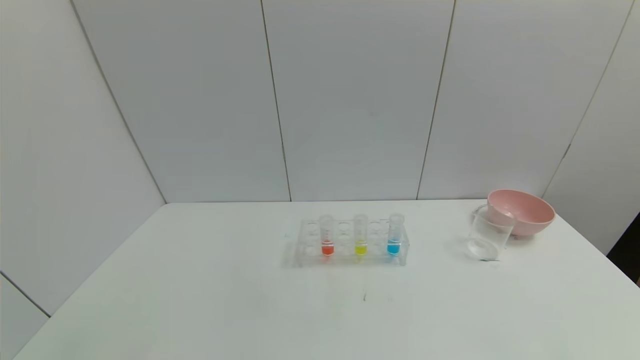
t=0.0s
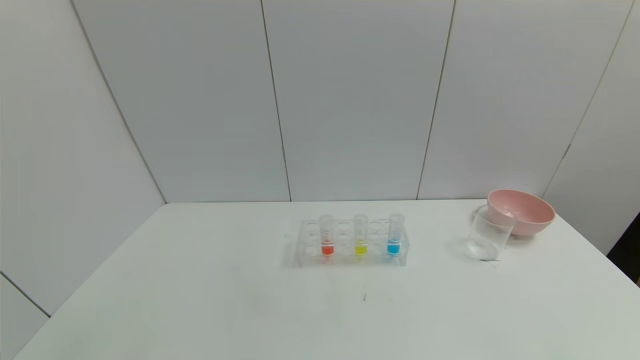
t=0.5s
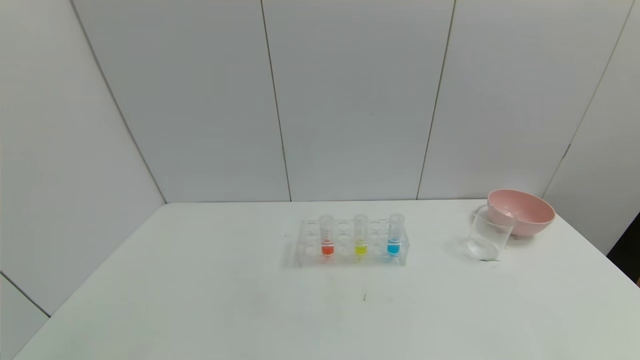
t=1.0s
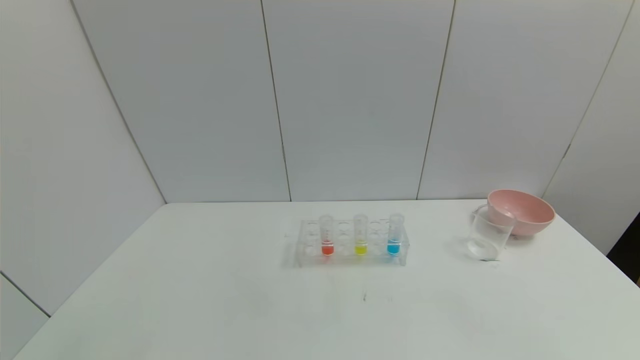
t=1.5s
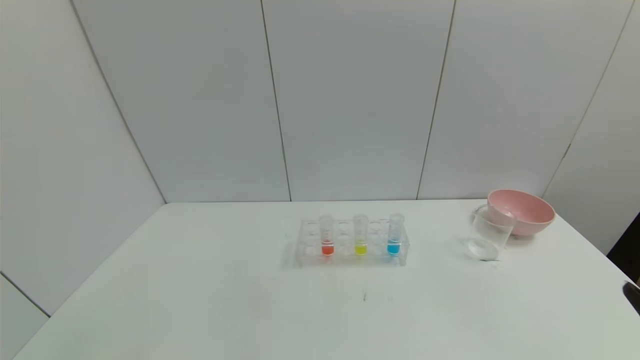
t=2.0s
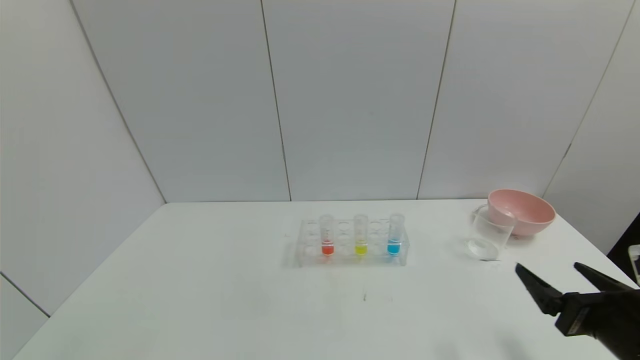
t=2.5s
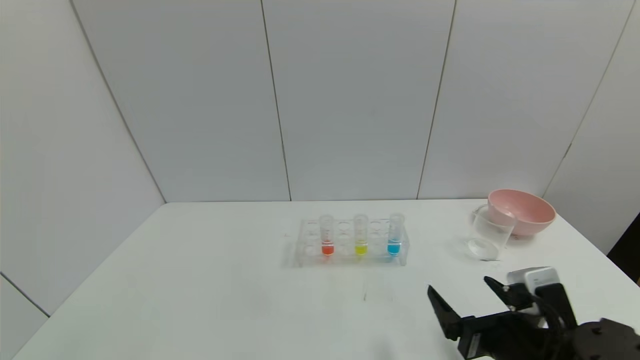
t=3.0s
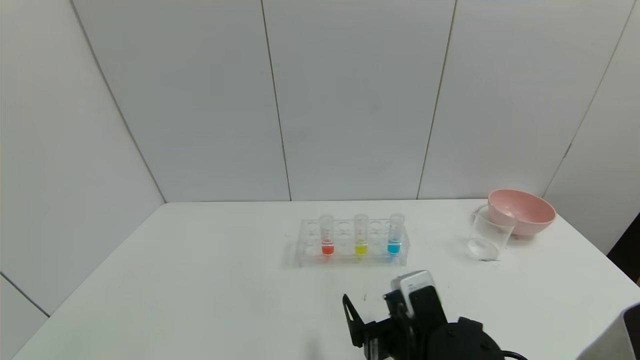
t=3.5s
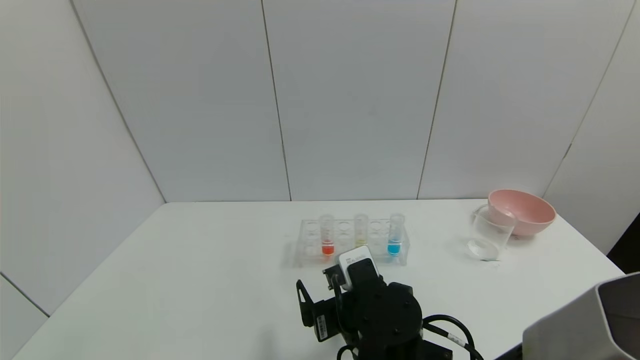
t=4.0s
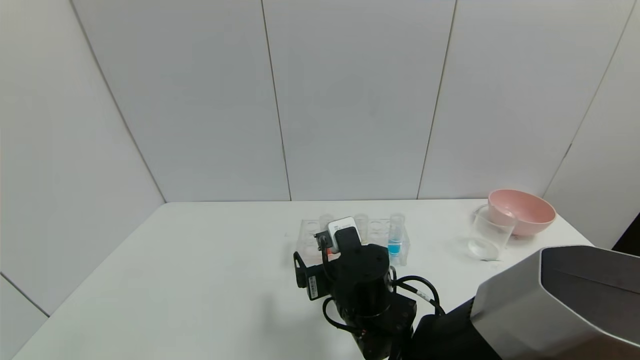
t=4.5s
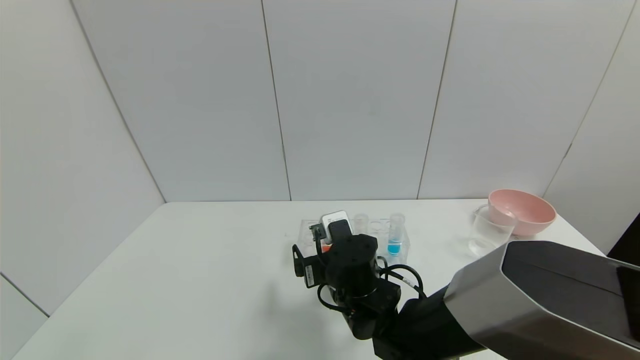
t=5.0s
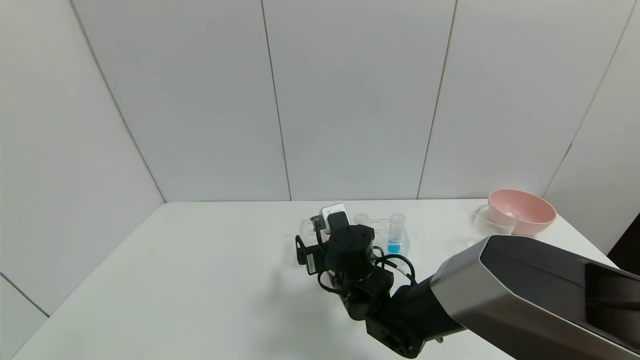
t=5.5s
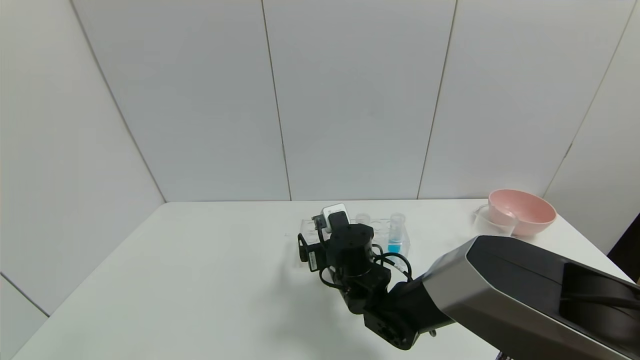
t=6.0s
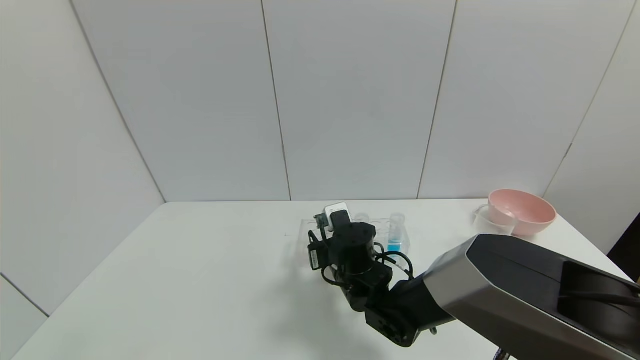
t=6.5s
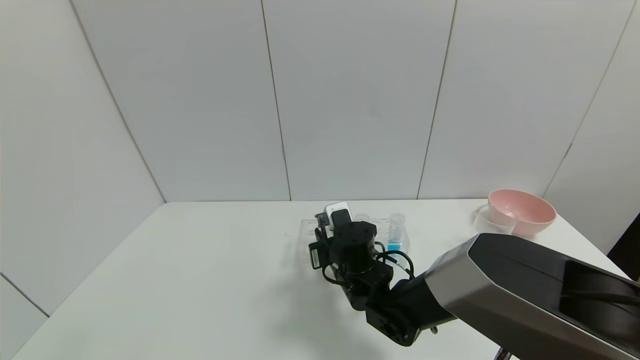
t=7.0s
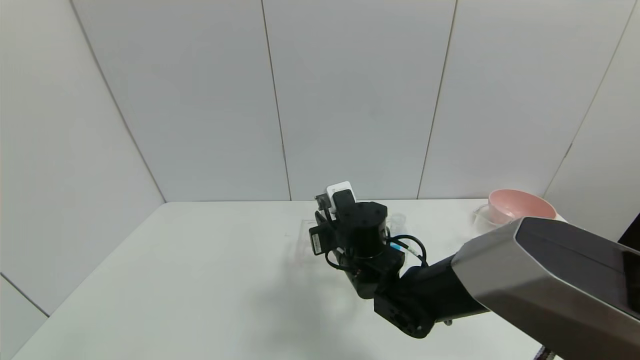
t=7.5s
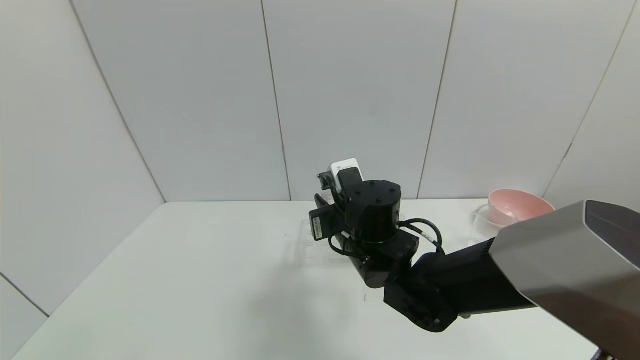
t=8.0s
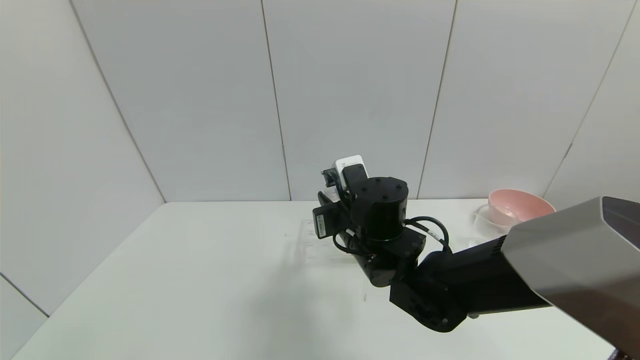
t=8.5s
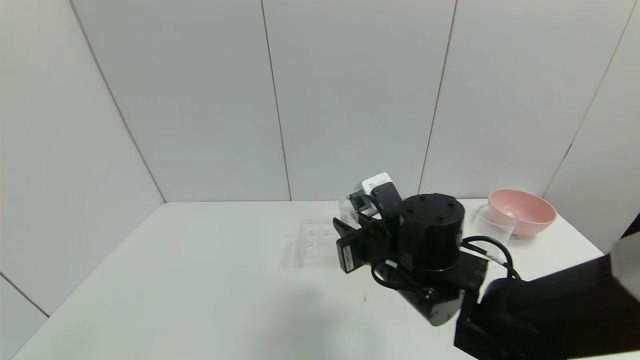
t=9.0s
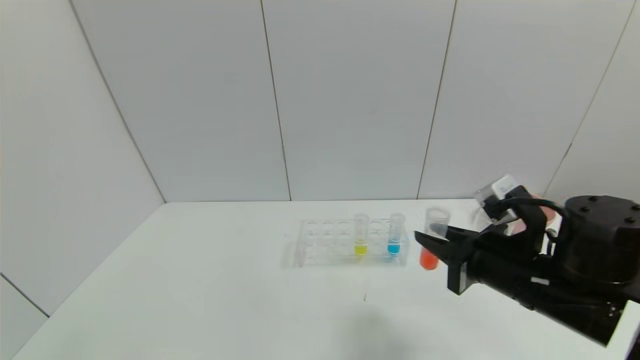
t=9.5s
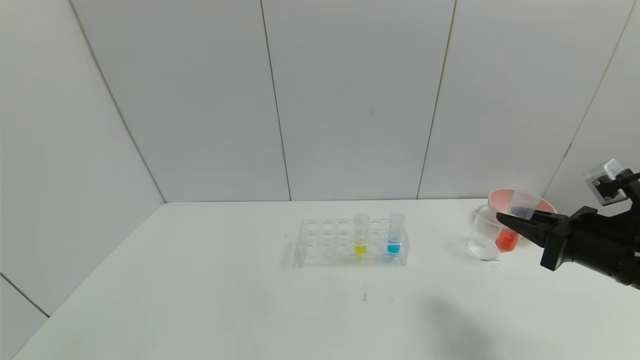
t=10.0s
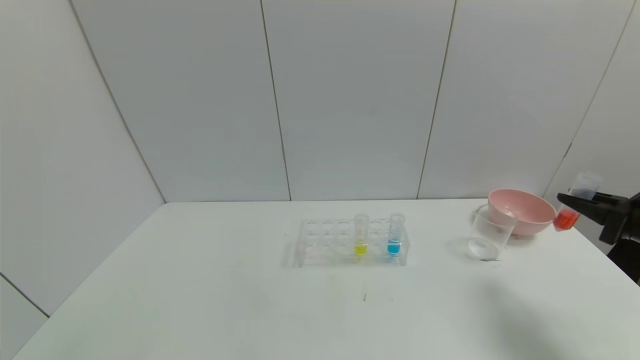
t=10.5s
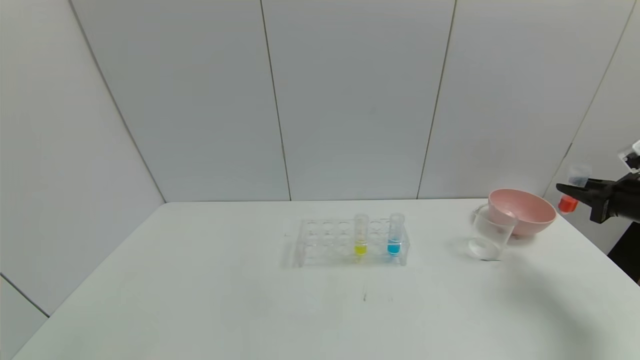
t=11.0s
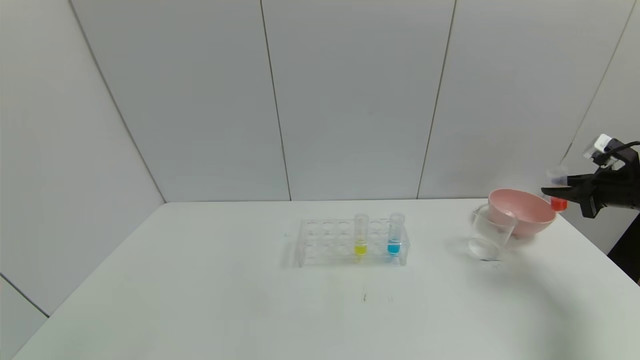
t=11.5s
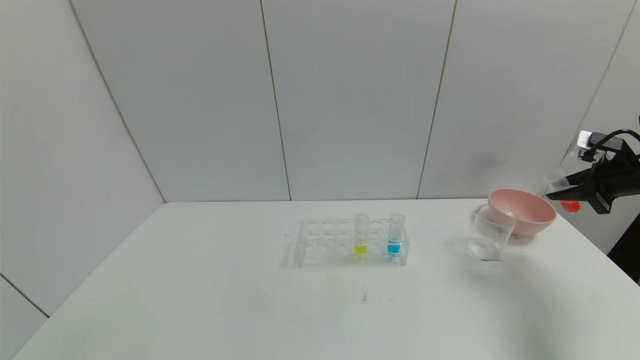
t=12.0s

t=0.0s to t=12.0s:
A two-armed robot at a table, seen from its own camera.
Task of the whole recording: pick up the test tube with red pigment and the test tube with blue pigment by grippers and pour them into the container.
Step, t=0.0s to t=11.0s: Pick up the test tube containing the red reagent with right gripper.
t=2.0s to t=4.0s: The right gripper moves to the left and forward, some 35 cm.
t=4.0s to t=6.0s: The right gripper shifts roughly 15 cm forward.
t=6.0s to t=8.0s: The right gripper travels upward by some 10 cm, and closes.
t=8.0s to t=10.0s: The right gripper heads to the right, covering some 30 cm.
t=10.0s to t=12.0s: The right gripper shifts about 20 cm to the right and forward.

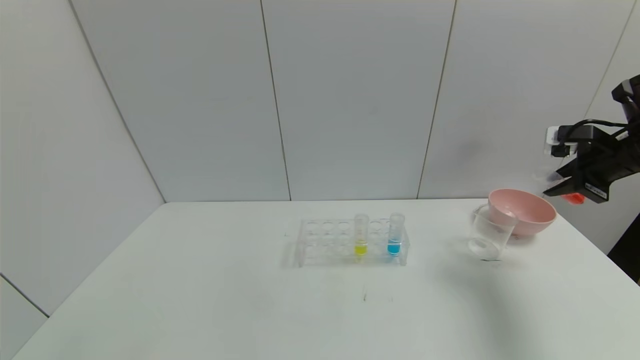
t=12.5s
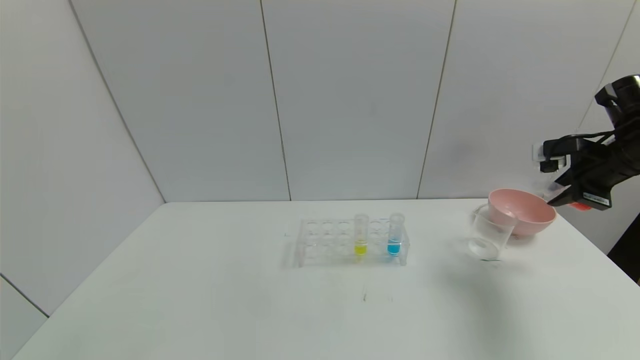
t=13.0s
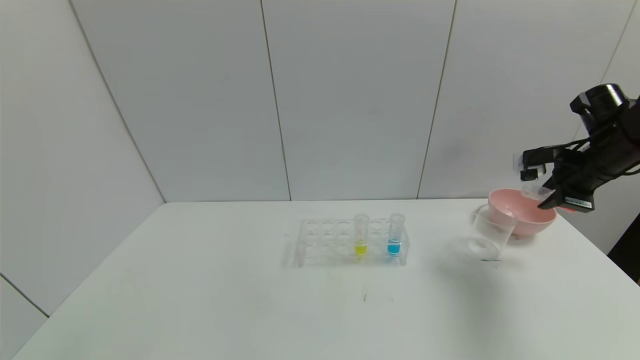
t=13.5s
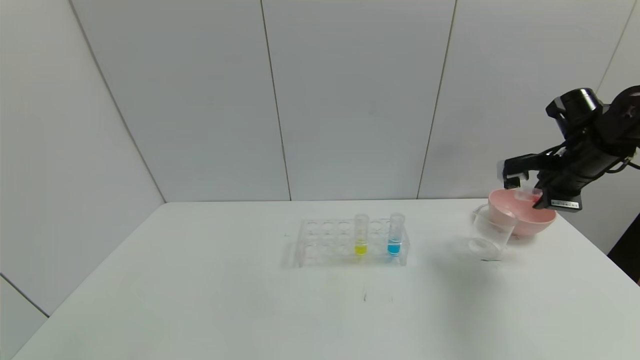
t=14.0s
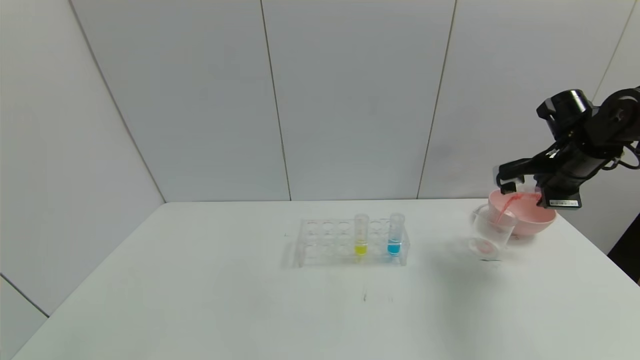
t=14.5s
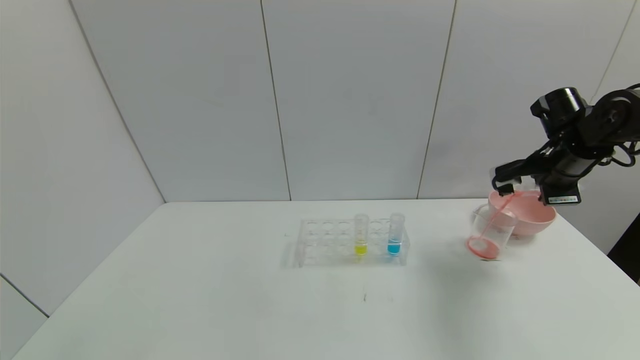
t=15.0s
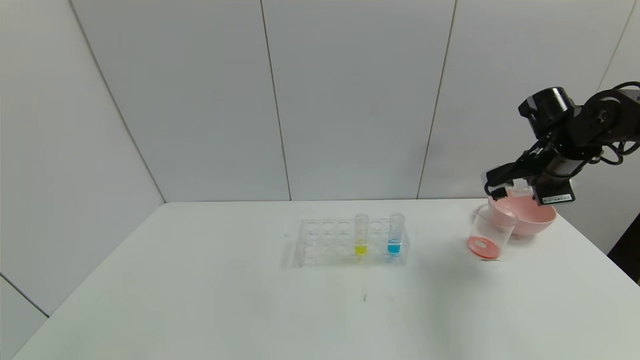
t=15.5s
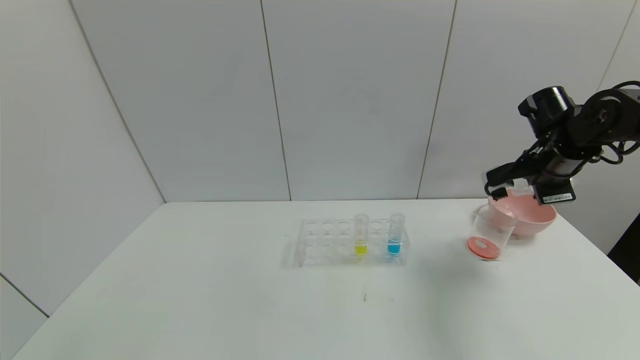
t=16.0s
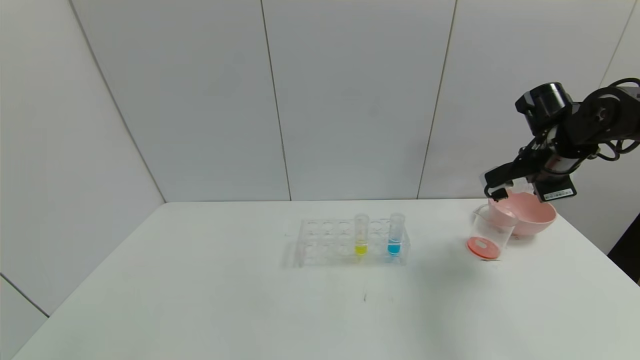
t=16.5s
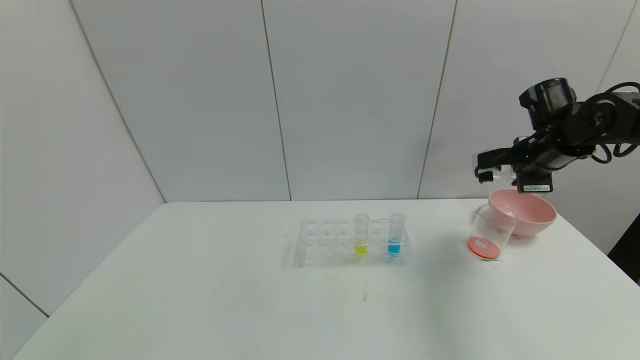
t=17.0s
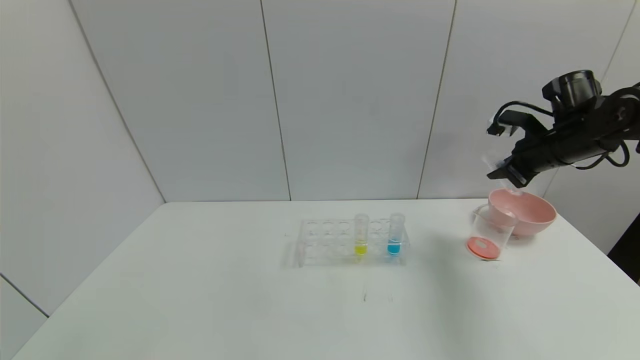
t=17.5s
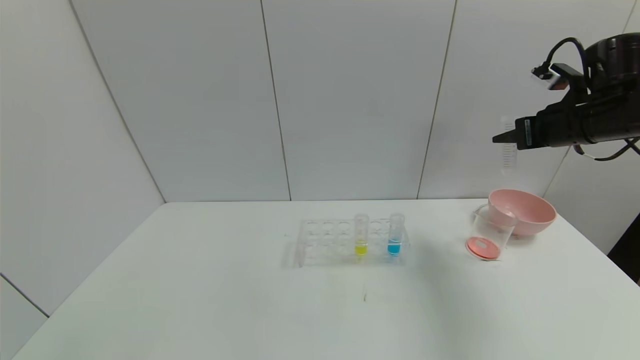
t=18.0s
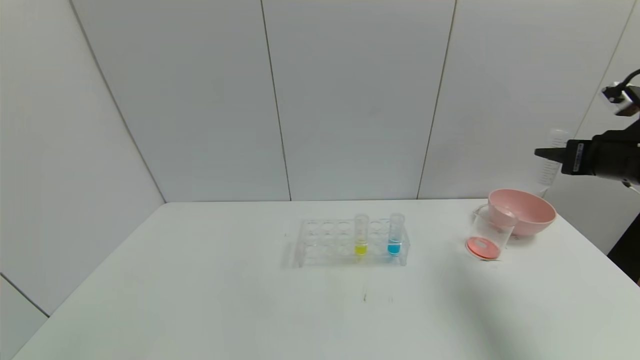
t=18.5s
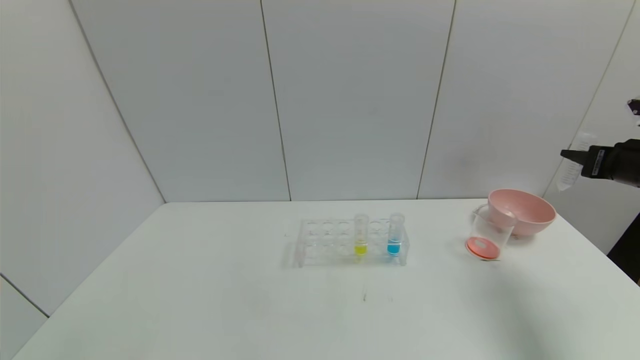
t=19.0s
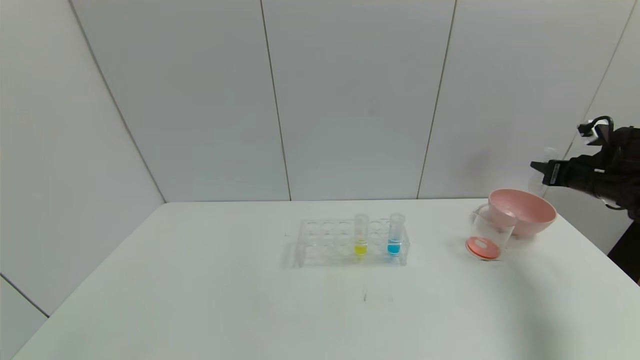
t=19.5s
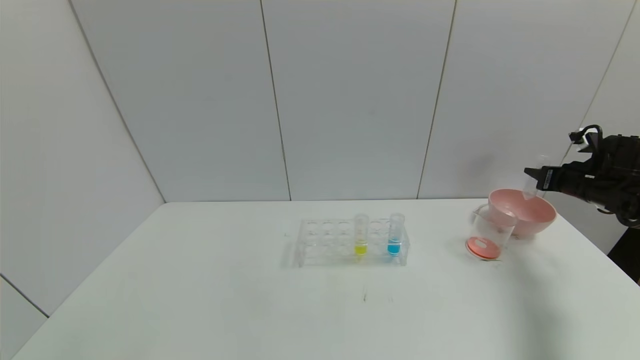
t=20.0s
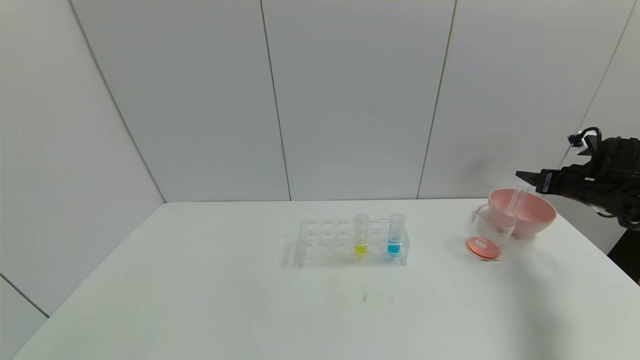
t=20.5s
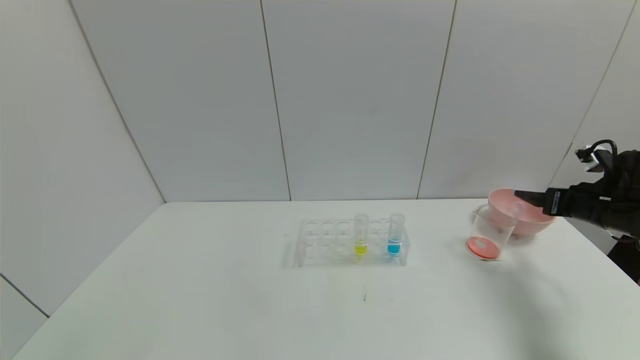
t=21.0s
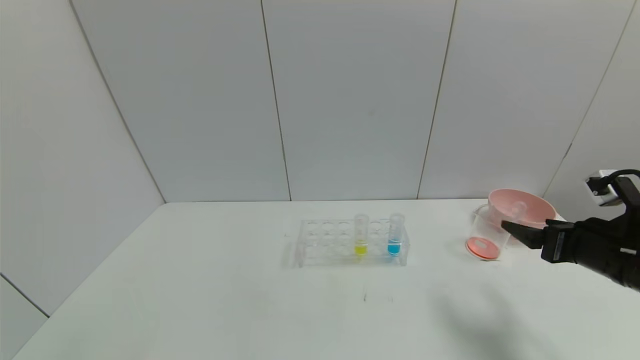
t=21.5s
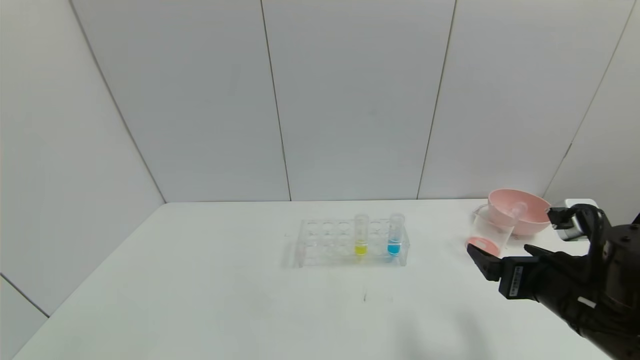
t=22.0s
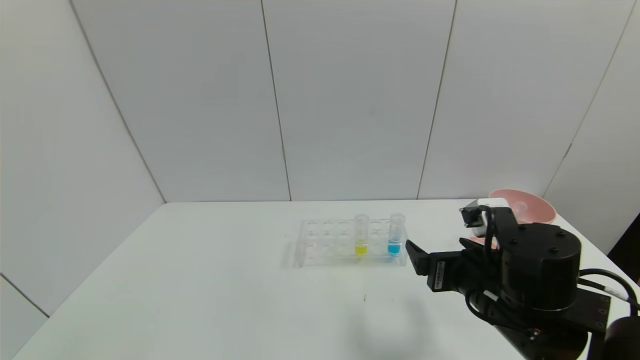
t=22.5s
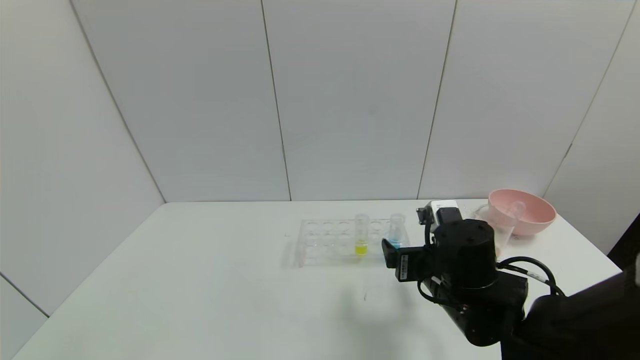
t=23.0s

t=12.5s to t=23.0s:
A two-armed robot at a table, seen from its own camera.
Task of the whole recording: pick up the test tube with red pigment and the test tube with blue pigment by grippers and pour them into the container.
Step, t=12.5s to t=18.0s: Pour the red reagent into the graduated cylinder with right gripper.
Step, t=18.5s to t=21.0s: Place the test tube into the bowl with right gripper.
t=12.5s to t=14.5s: The right gripper heads to the left, covering approximately 5 cm.
t=14.5s to t=16.5s: The grippers stay close to where they were, moving slightly.
t=16.5s to t=19.0s: The right gripper heads to the right and backward, covering about 15 cm.
t=19.0s to t=21.0s: The right gripper travels downward by approximately 10 cm, goes forward and returns, roughly 10 cm each way, and opens.
t=21.0s to t=23.0s: The right gripper moves to the left, approximately 30 cm.
